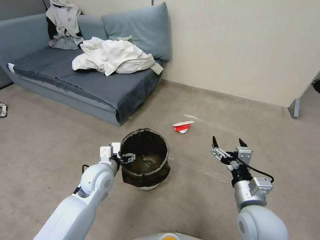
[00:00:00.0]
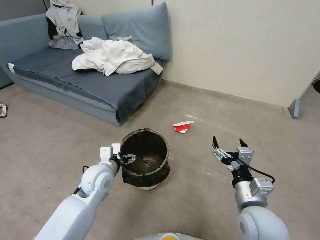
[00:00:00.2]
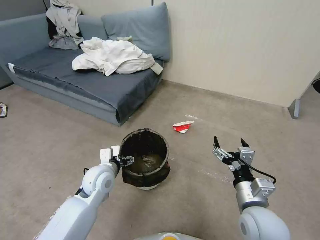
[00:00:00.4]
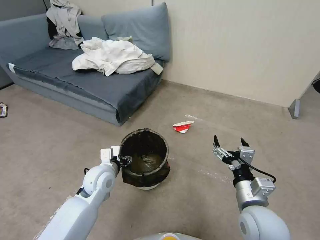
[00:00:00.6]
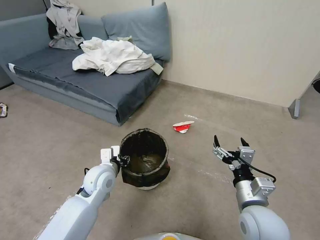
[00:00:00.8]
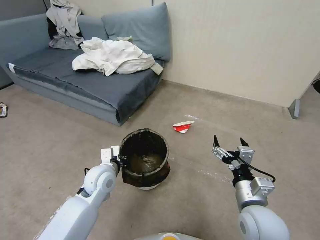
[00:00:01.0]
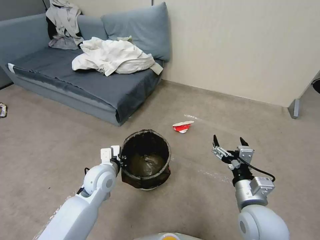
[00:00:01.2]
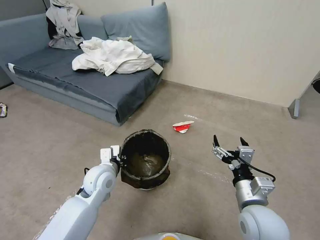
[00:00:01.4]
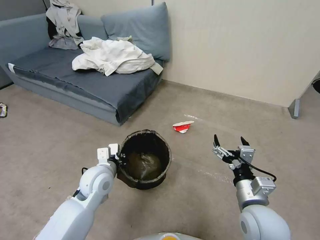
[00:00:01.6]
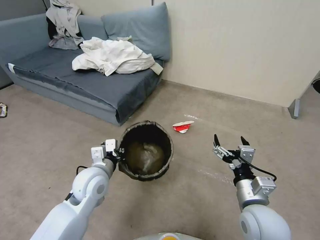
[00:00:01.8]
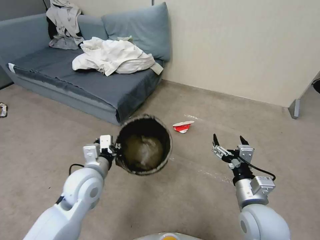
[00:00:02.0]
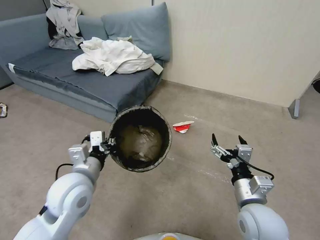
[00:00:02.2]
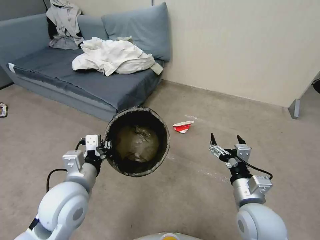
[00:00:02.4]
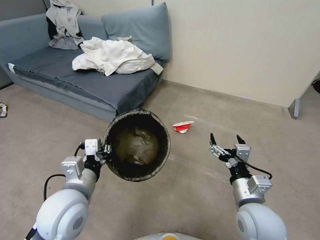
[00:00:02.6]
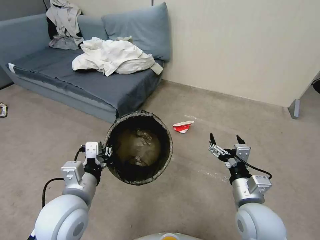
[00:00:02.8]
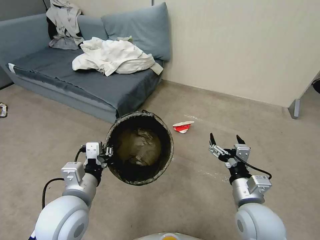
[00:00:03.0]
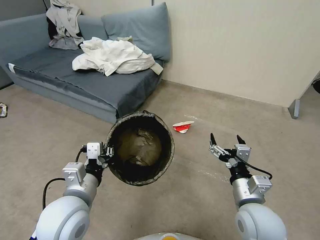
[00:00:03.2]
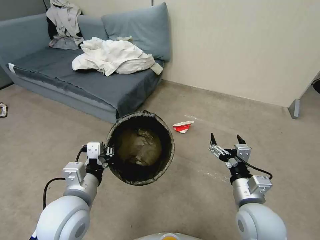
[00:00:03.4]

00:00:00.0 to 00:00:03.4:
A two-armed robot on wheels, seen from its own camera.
Task of the whole recording: Pick up the trash can from the floor.
00:00:00.0 to 00:00:01.6: The left gripper closes its fingers.
00:00:01.6 to 00:00:03.4: The left gripper heads backward and upward, covering approximately 15 cm.
